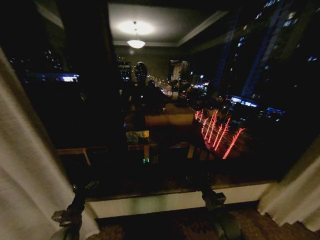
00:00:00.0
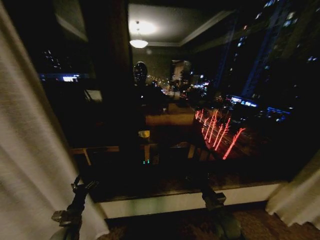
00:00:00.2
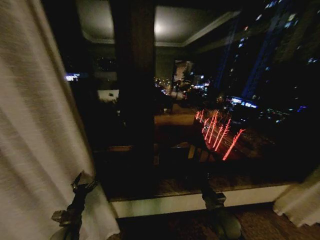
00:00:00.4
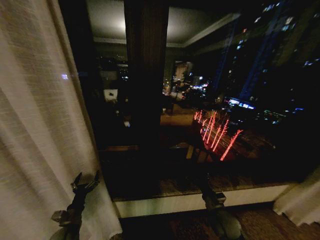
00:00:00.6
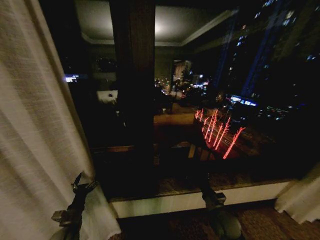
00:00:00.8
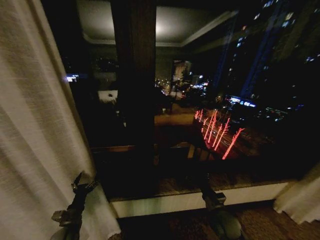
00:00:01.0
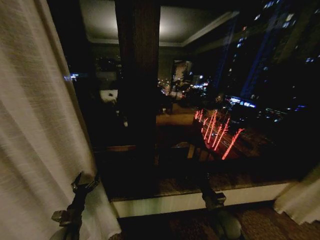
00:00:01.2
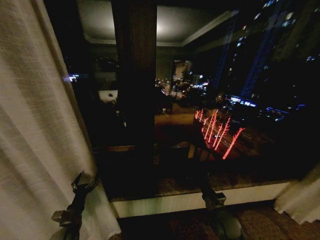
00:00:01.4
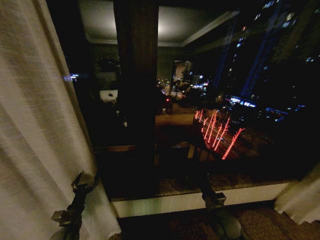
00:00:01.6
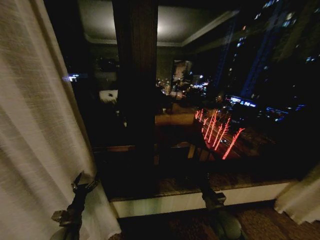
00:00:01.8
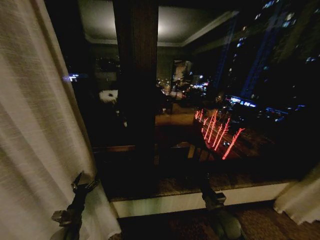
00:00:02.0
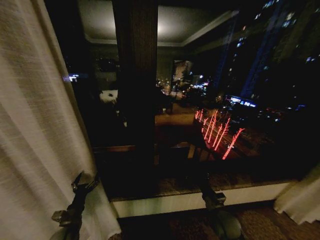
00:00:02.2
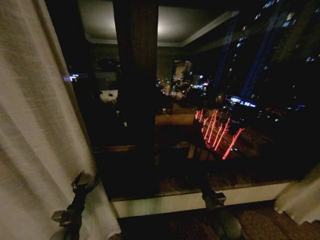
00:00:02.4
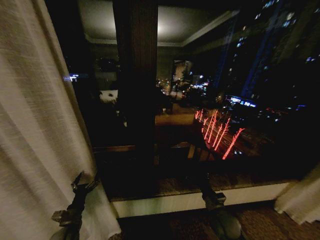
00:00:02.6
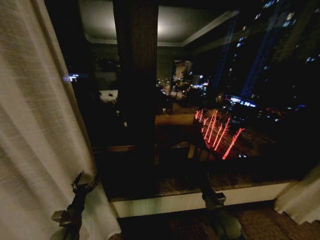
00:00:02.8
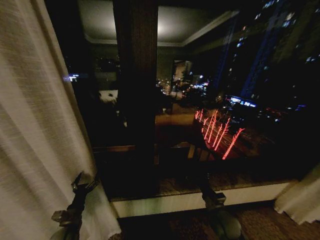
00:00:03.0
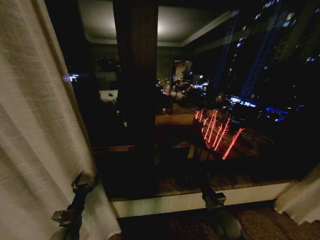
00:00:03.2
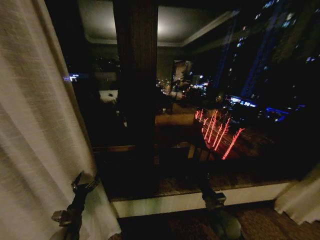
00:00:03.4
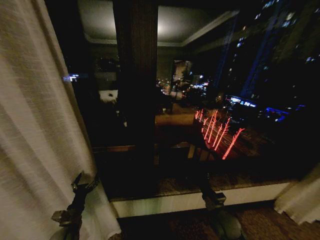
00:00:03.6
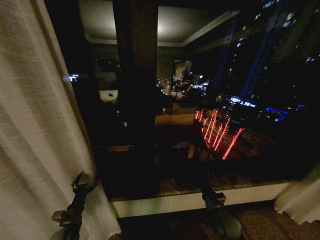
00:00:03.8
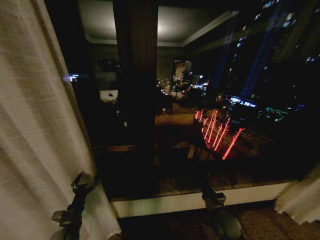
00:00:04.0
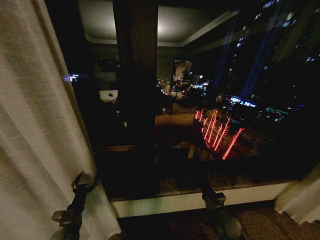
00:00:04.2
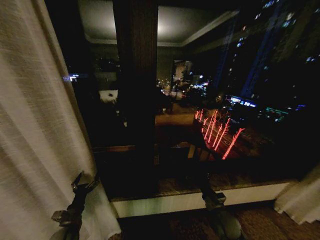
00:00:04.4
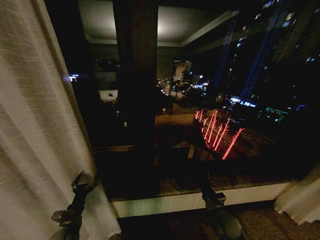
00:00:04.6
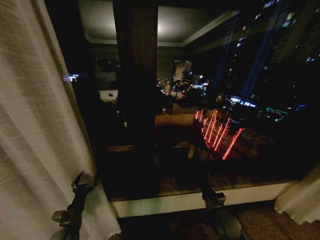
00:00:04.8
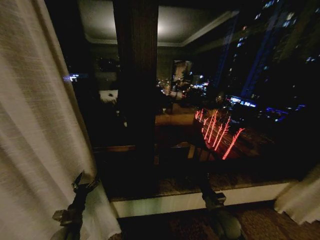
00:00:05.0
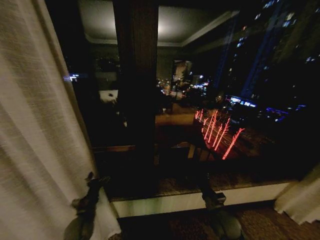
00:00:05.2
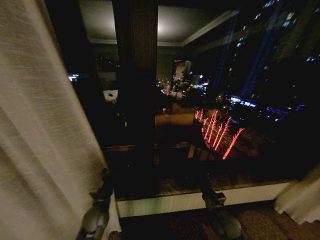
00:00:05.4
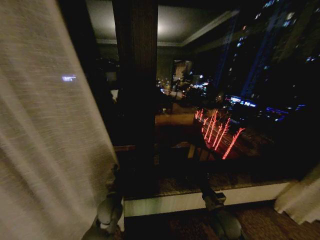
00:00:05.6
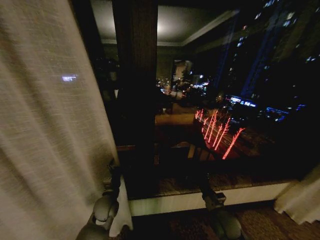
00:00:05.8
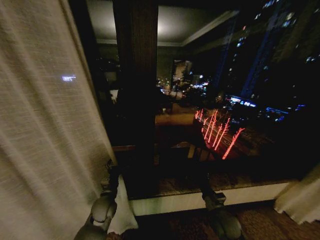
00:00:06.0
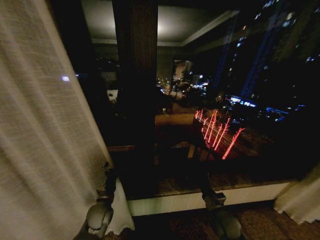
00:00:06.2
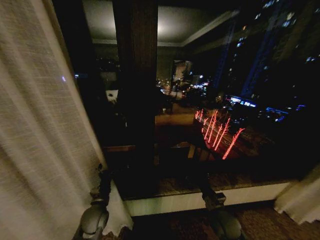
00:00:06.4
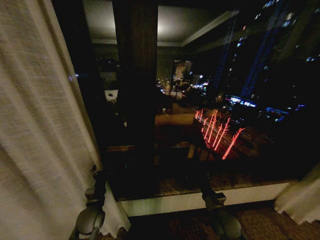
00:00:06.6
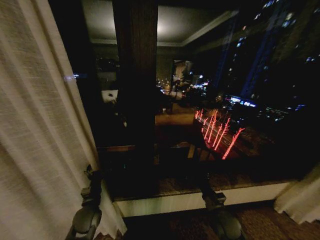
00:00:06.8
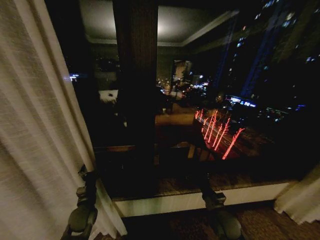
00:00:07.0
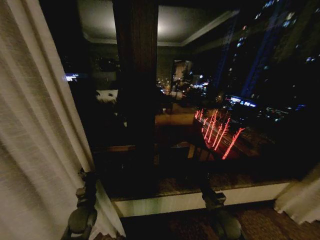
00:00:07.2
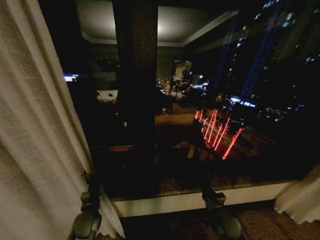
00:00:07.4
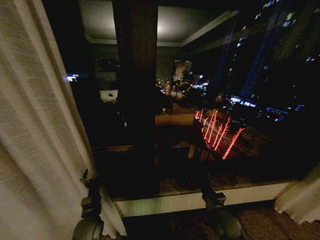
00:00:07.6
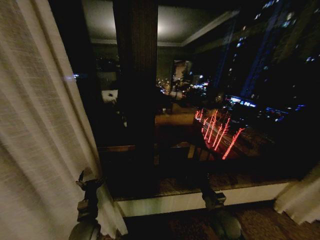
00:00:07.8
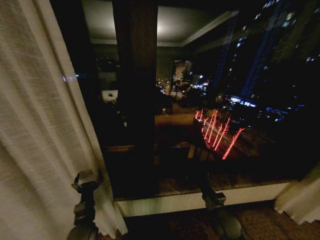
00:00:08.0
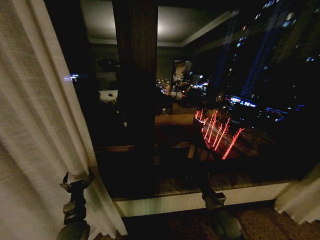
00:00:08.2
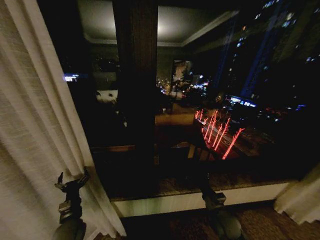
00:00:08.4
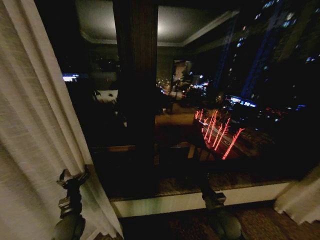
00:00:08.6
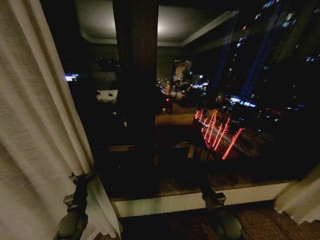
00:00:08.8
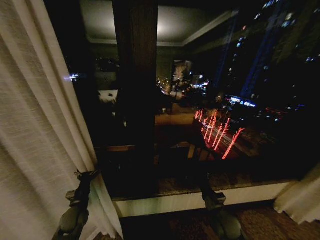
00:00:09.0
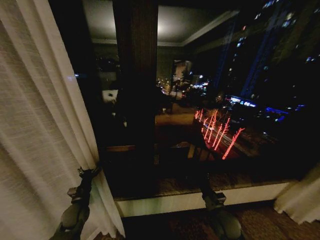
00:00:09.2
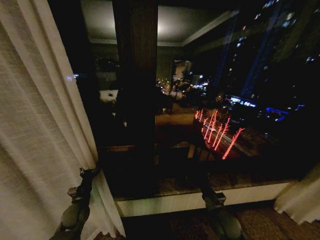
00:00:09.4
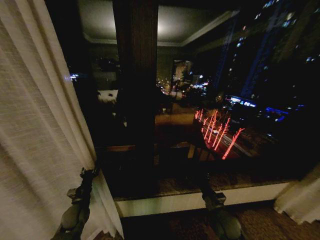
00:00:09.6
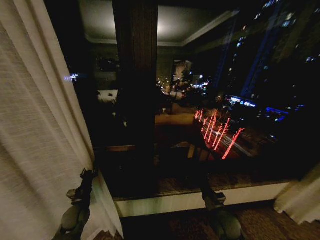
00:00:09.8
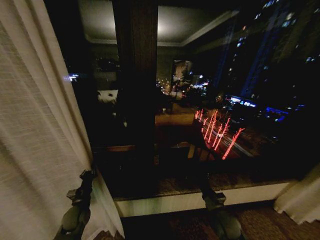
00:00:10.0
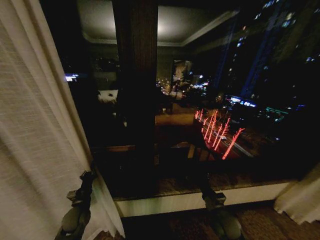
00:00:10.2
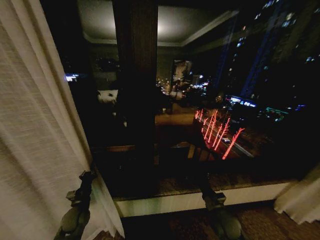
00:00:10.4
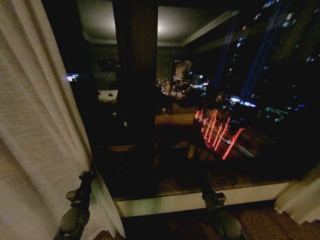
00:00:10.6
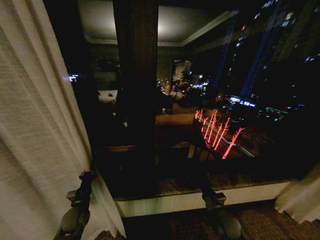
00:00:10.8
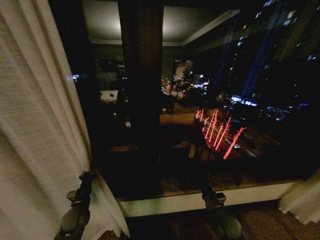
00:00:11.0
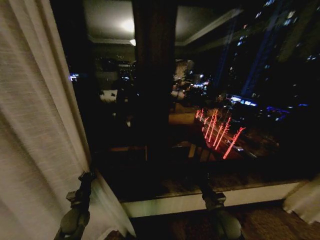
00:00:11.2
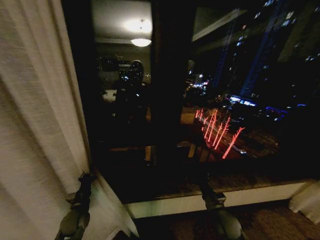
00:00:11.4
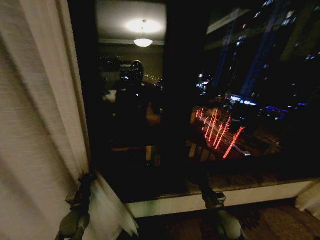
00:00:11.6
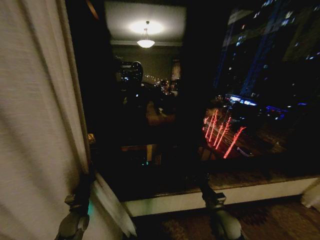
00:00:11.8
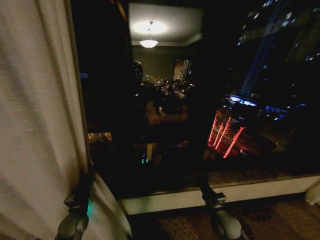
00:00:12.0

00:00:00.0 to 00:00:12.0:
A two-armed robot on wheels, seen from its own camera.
Task of the whole recording: Open the curtains by pulling them apart, changing their state from closed to fully open.
00:00:01.6 to 00:00:04.4: The two grippers keep their place.
00:00:04.4 to 00:00:06.0: The left gripper moves to the right and forward, approximately 15 cm.
00:00:06.0 to 00:00:07.6: The left gripper is displaced backward by roughly 5 cm.
00:00:07.6 to 00:00:09.0: The left gripper travels to the left by roughly 10 cm.
00:00:09.0 to 00:00:10.4: The left gripper closes up.

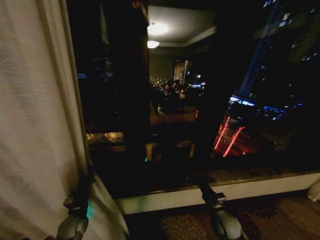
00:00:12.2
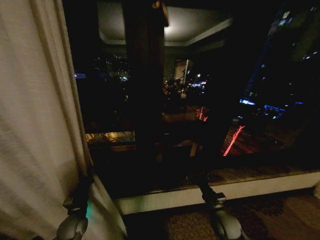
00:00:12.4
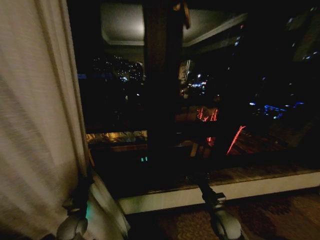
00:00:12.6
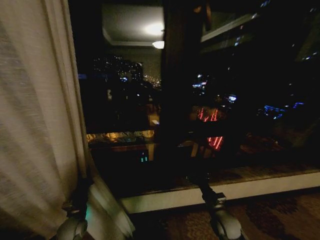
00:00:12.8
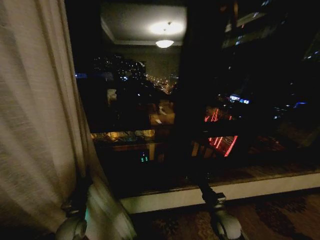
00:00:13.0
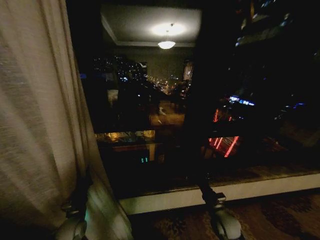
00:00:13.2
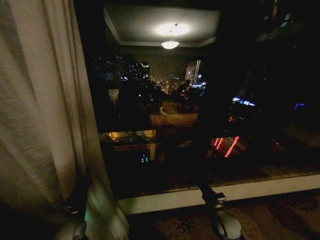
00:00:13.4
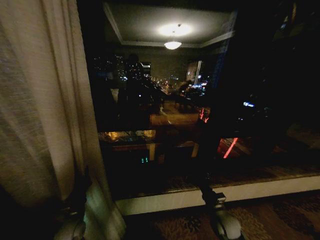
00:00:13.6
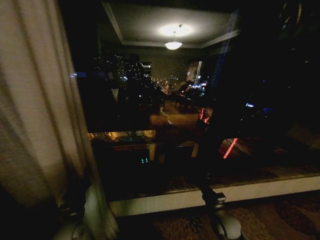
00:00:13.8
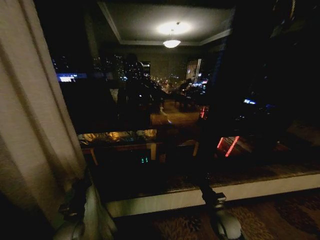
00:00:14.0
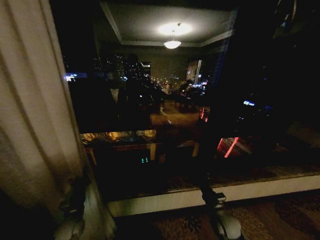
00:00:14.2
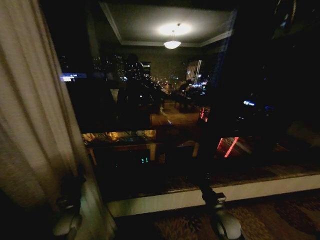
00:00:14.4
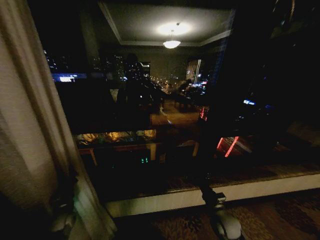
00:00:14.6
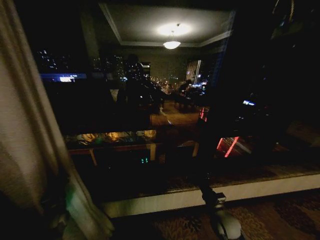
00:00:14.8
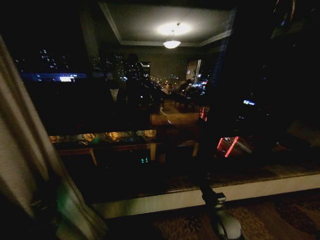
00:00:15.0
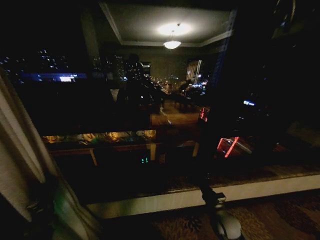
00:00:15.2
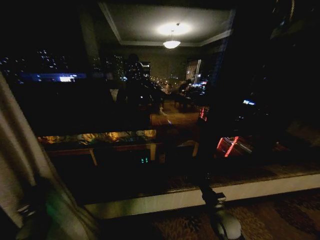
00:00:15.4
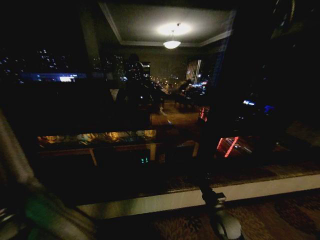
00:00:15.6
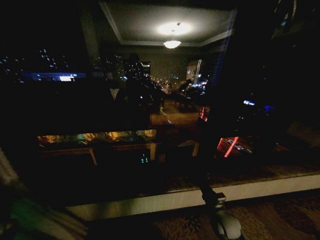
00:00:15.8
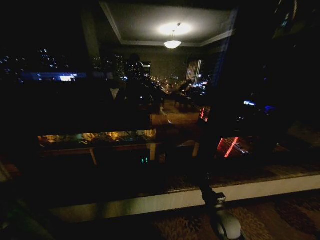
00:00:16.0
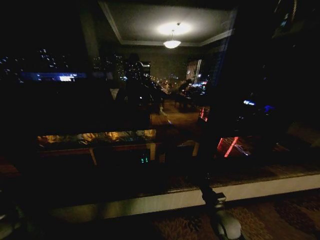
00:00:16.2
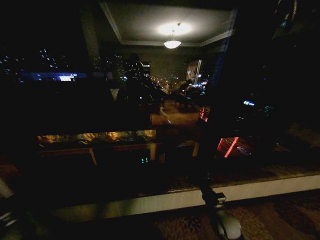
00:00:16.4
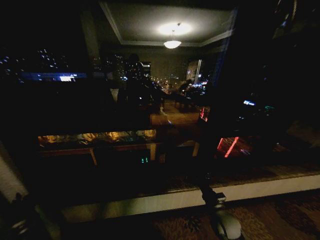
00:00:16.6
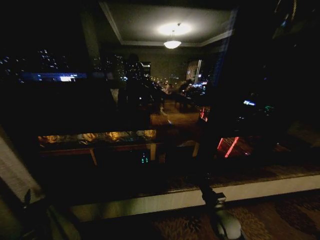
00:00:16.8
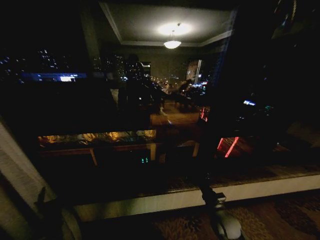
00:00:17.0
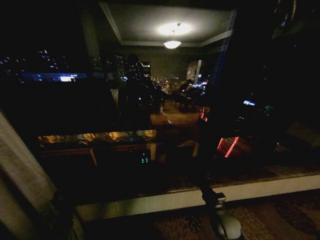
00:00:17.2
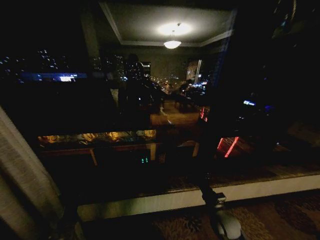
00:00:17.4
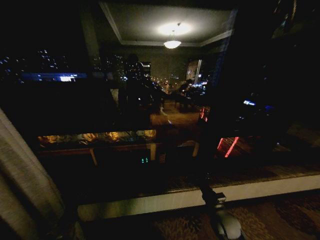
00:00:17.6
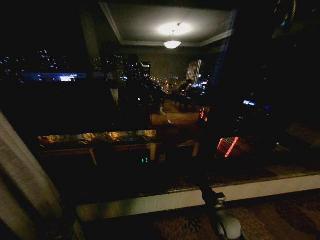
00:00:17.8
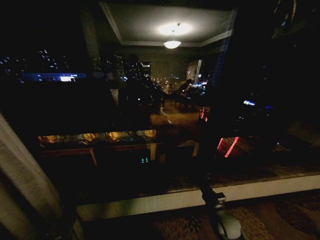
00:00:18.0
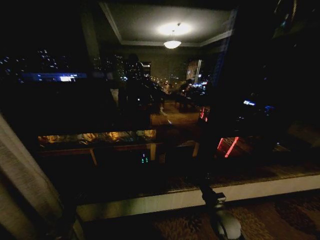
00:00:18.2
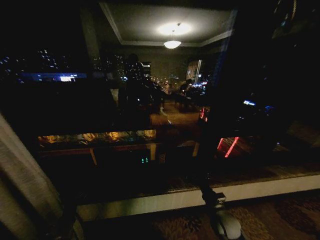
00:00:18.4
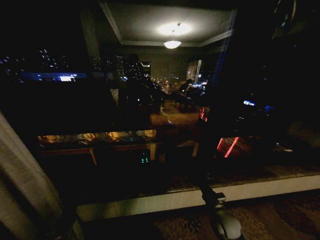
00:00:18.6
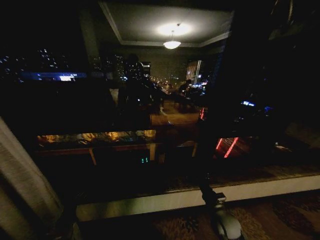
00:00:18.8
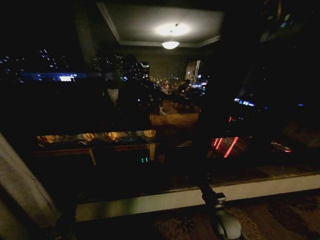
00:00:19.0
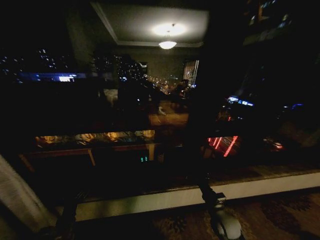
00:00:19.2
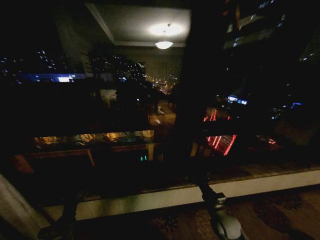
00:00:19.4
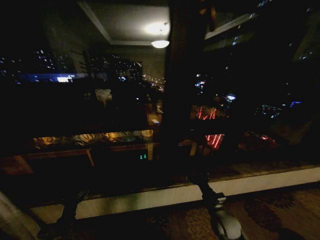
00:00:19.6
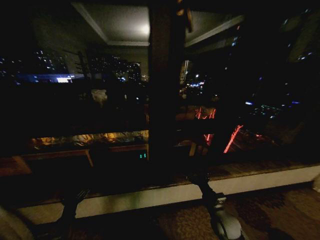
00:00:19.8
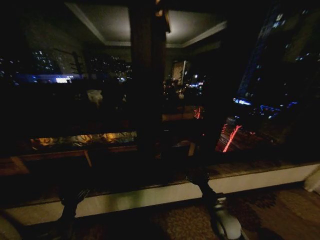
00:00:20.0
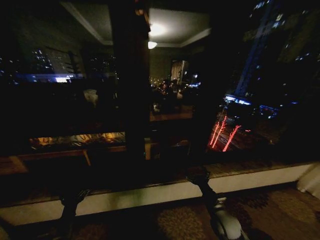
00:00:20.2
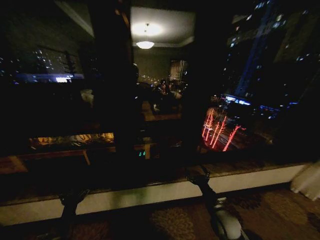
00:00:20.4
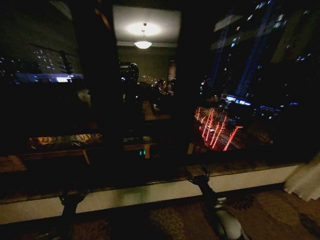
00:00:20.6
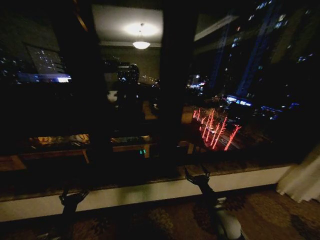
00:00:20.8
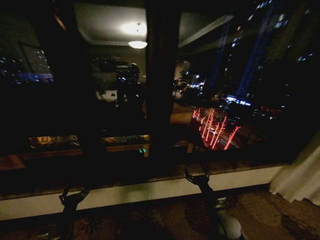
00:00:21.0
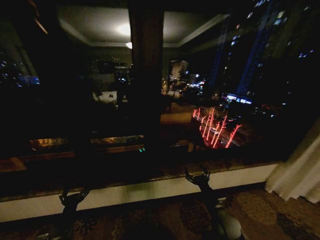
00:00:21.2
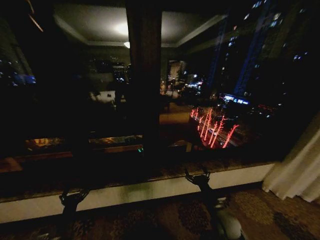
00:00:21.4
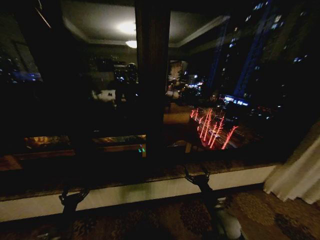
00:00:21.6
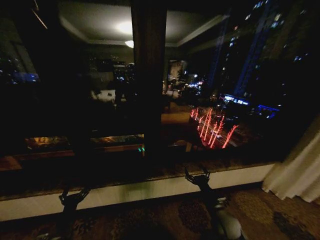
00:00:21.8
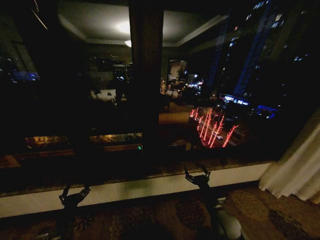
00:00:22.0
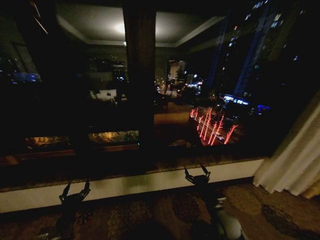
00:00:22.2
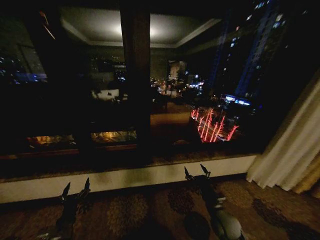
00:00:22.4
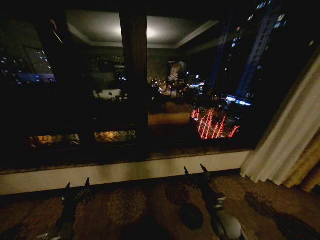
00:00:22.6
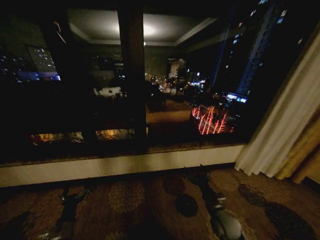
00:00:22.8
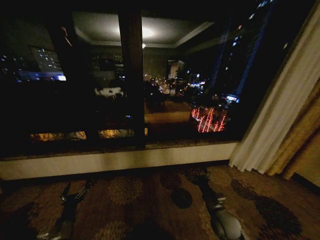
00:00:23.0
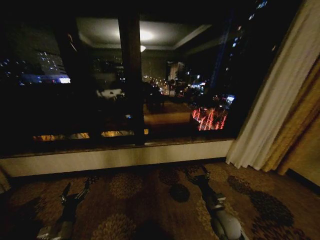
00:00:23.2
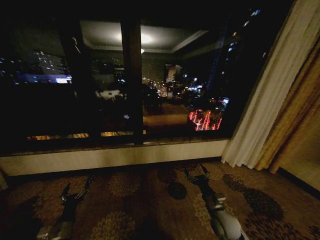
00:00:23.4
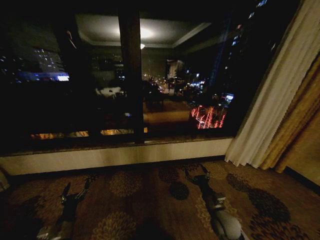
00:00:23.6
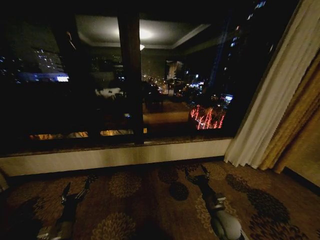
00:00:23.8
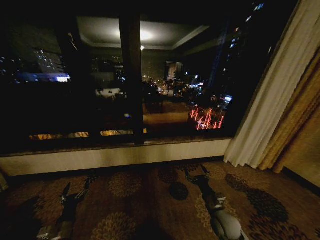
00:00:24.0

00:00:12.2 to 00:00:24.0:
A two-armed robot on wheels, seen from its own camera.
Task of the whole recording: Open the curtains by pulling them apart, changing their state from closed to fully open.
00:00:13.6 to 00:00:15.2: The left gripper moves to the left, roughly 15 cm.
00:00:15.2 to 00:00:16.6: The left gripper moves backward, some 5 cm, and moves about 15 cm to the left and comes back.
00:00:16.6 to 00:00:18.2: The left gripper goes about 15 cm to the right, and opens up.
00:00:18.2 to 00:00:19.6: Neither gripper changes place.
